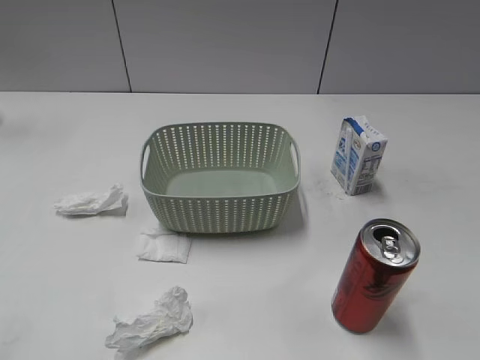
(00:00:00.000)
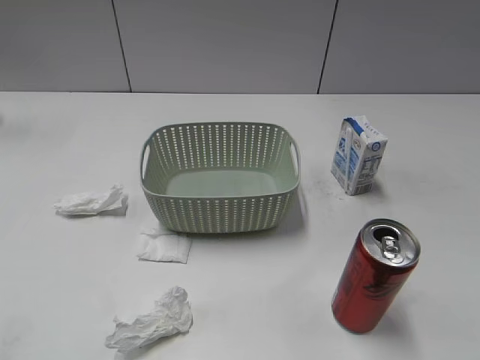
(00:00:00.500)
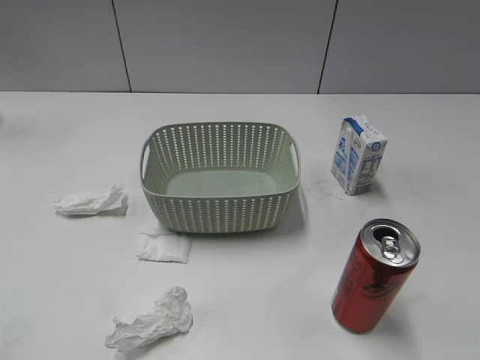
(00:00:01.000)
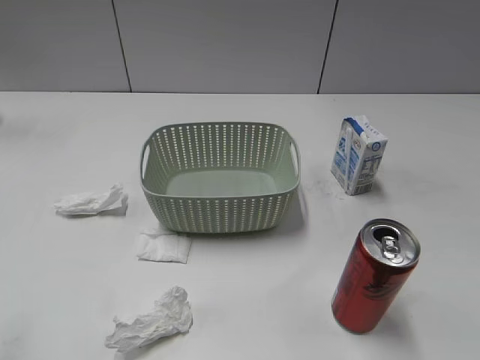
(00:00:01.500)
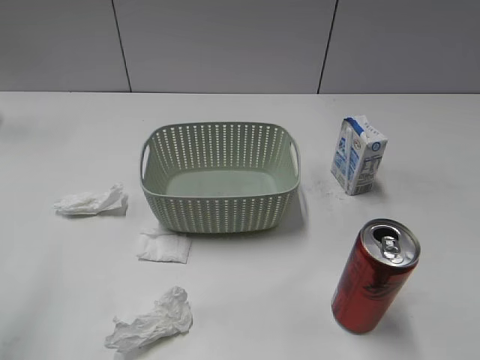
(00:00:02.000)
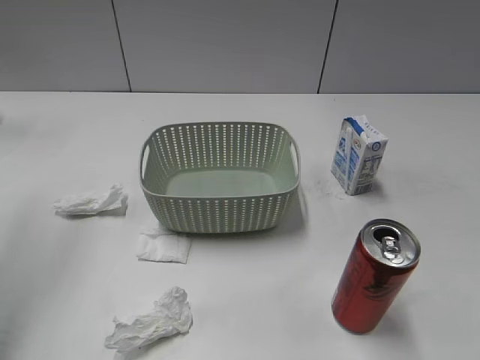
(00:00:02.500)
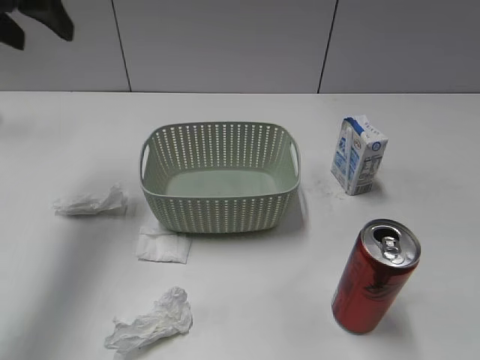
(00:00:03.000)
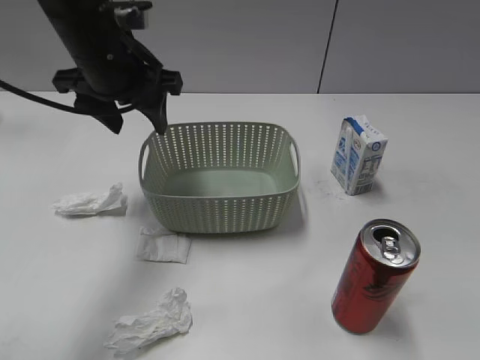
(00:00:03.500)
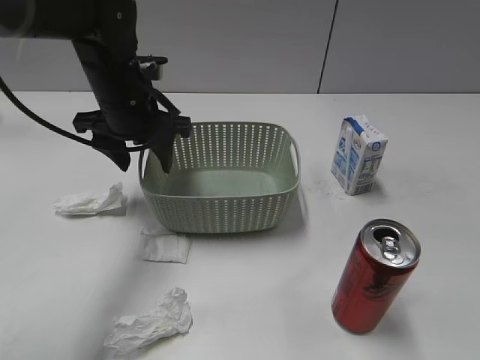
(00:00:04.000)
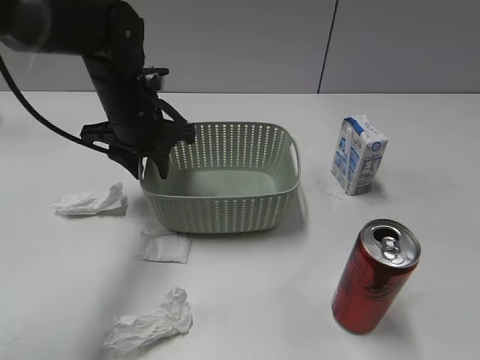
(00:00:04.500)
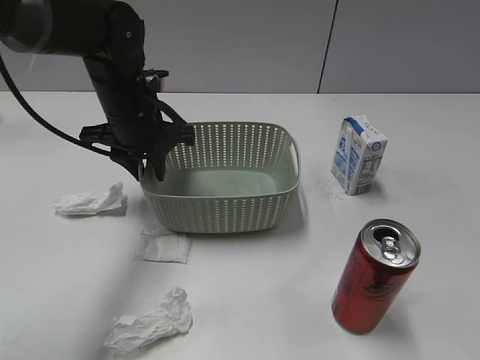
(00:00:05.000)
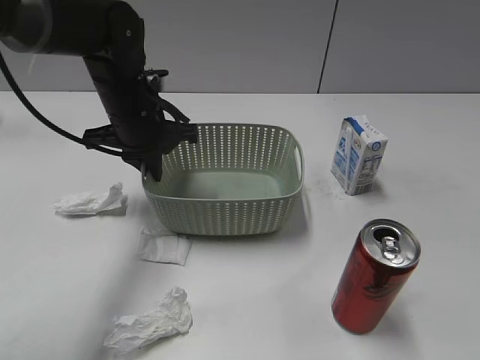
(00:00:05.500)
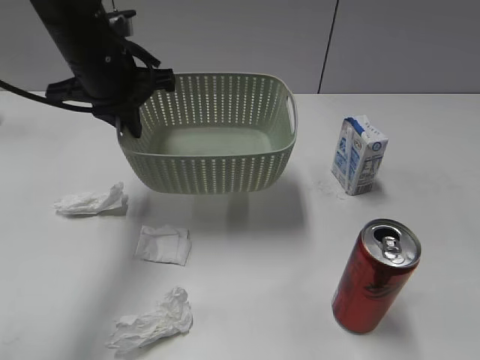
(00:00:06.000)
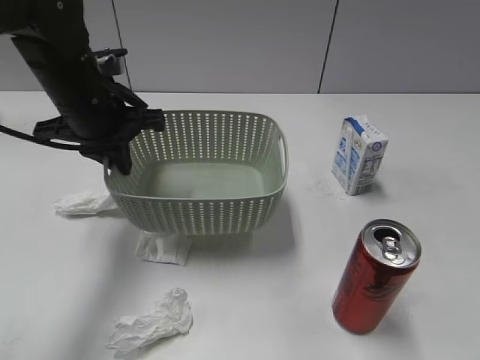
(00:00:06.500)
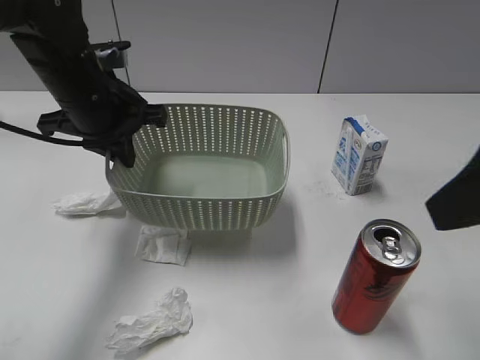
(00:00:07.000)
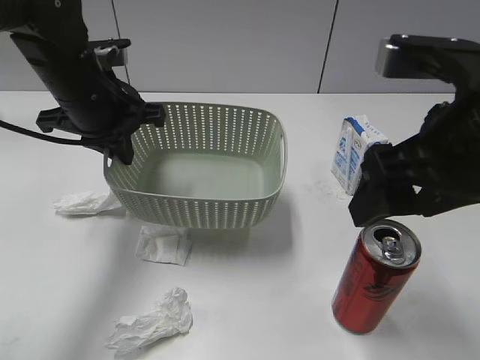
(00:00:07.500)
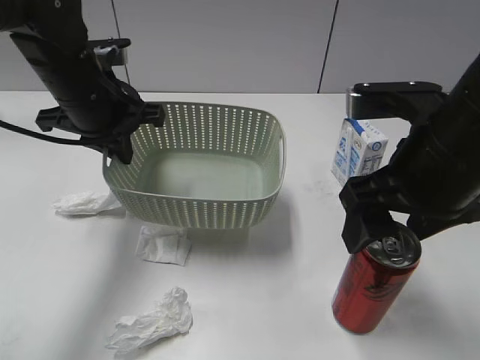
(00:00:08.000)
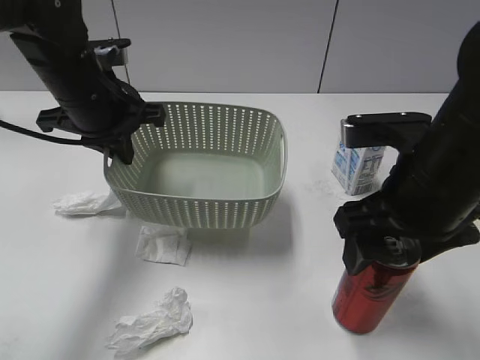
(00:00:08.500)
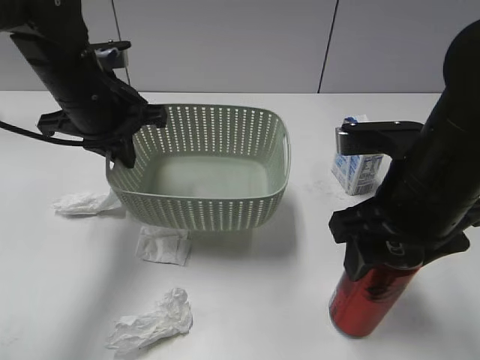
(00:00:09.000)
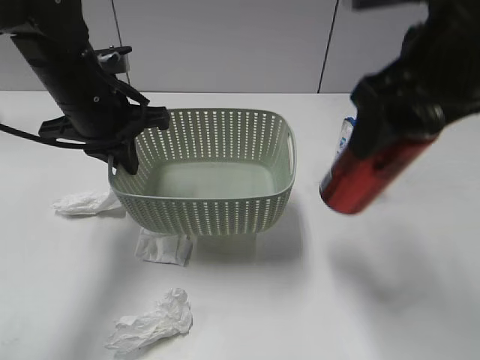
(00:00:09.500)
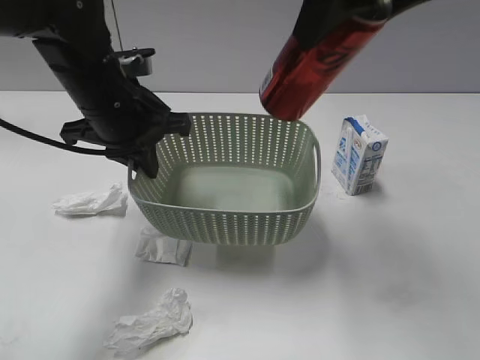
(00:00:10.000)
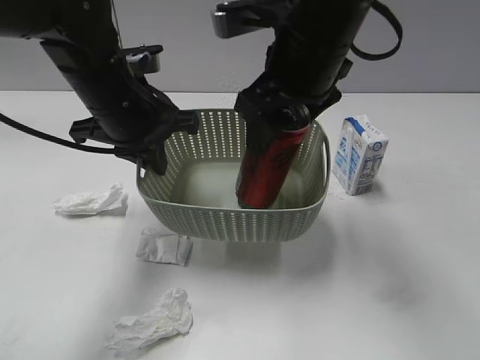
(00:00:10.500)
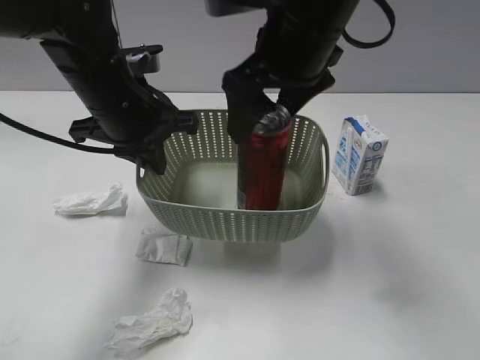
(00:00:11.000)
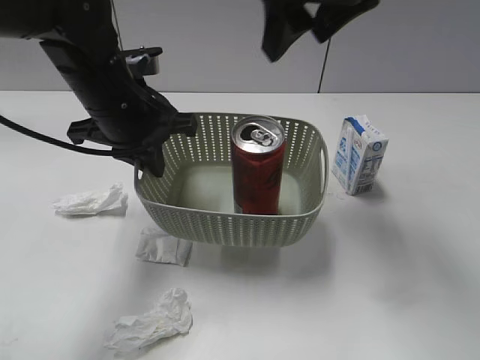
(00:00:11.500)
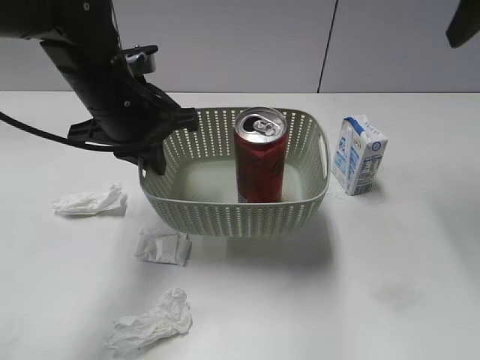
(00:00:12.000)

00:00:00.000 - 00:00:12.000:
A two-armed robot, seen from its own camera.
Step, 00:00:03.000 - 00:00:05.000: Grasp the basket with left gripper.
Step, 00:00:05.500 - 00:00:06.500: Lift the basket with left gripper.
Step, 00:00:07.000 - 00:00:08.500: Grasp the cola can with right gripper.
Step, 00:00:09.000 - 00:00:11.000: Place the cola can in the basket with right gripper.
00:00:02.000 - 00:00:04.000: The left gripper shifts approximately 35 cm forward, downward and to the right.
00:00:04.000 - 00:00:06.000: The left gripper moves upward, roughly 5 cm, and closes.
00:00:06.000 - 00:00:08.000: The right gripper is displaced forward and to the left by roughly 25 cm.
00:00:08.000 - 00:00:10.000: The right gripper travels upward, forward and to the left by approximately 15 cm, and closes its fingers.
00:00:10.000 - 00:00:12.000: The right gripper heads to the right, covering approximately 15 cm, and opens.

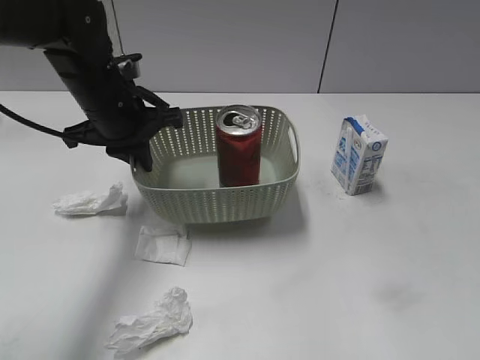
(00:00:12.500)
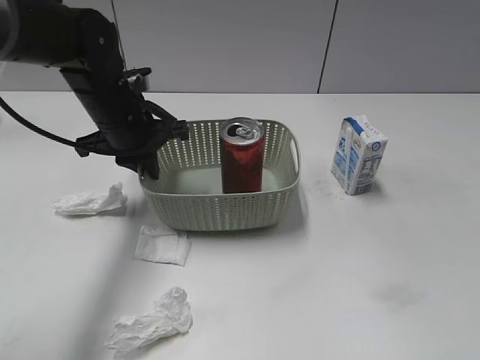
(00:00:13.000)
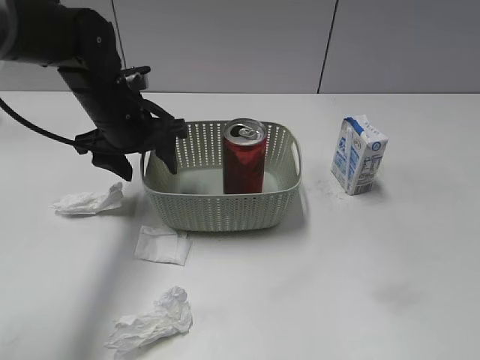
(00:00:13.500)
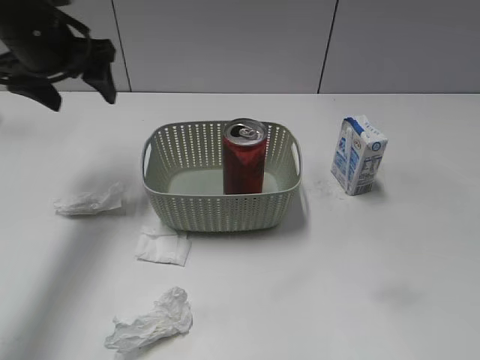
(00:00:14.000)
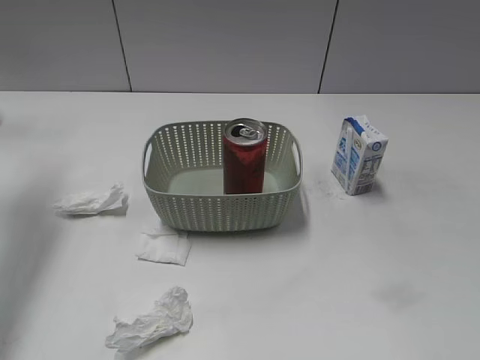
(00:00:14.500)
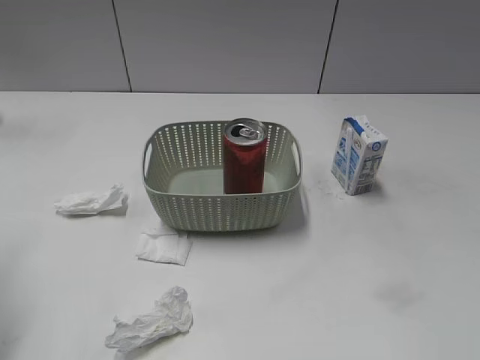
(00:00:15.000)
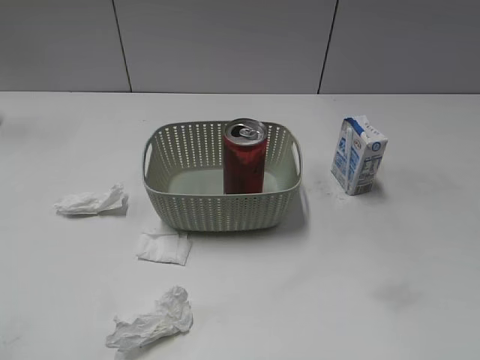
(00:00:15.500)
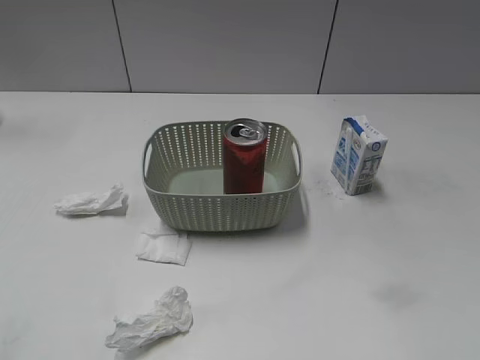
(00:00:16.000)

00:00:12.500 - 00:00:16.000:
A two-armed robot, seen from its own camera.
00:00:12.500 - 00:00:14.500: The right gripper heads backward and downward, covering roughly 15 cm; the left gripper shifts approximately 20 cm to the left and upward, and opens.
00:00:14.500 - 00:00:16.000: The left gripper shifts about 35 cm backward.

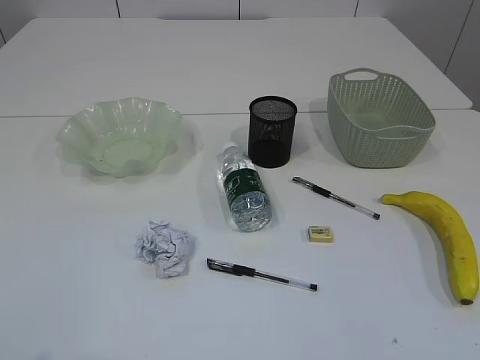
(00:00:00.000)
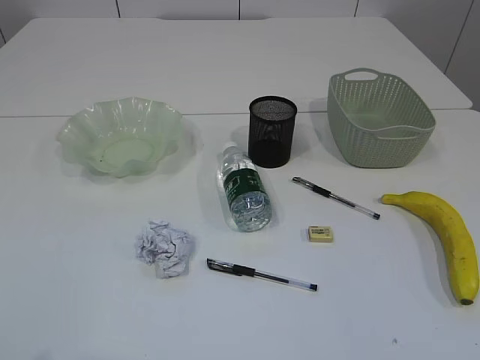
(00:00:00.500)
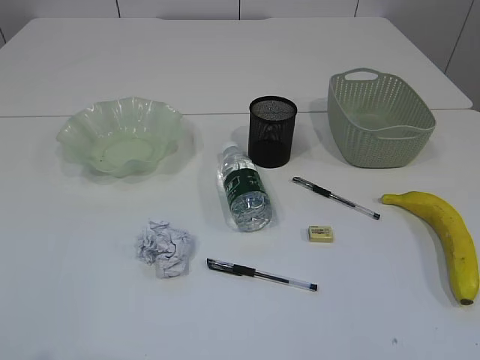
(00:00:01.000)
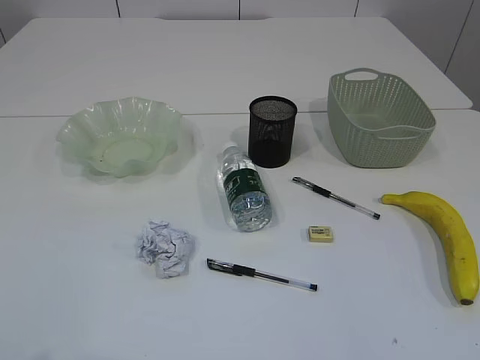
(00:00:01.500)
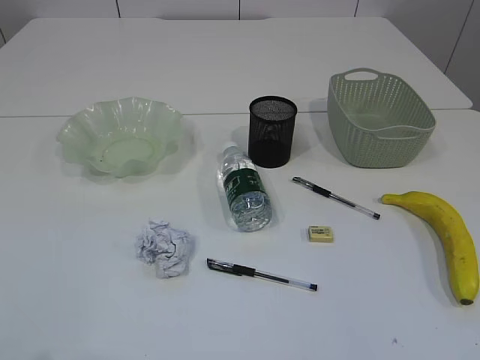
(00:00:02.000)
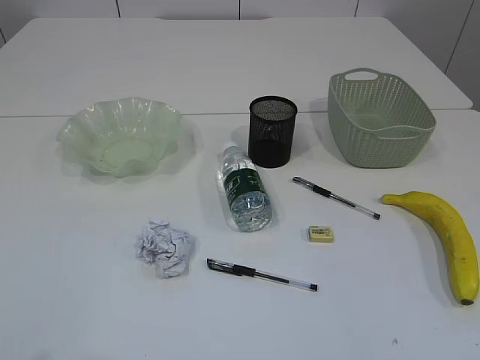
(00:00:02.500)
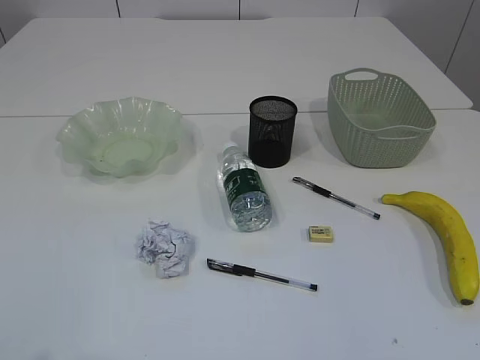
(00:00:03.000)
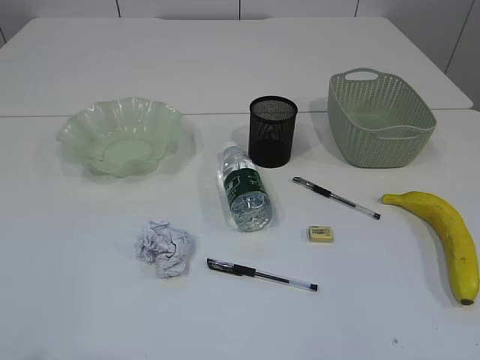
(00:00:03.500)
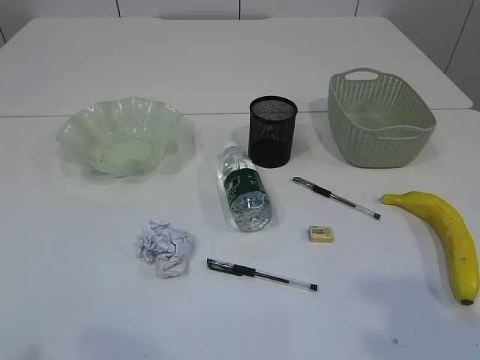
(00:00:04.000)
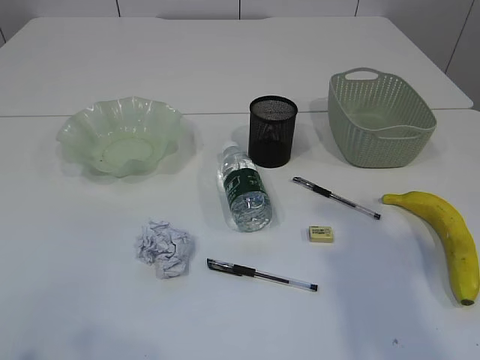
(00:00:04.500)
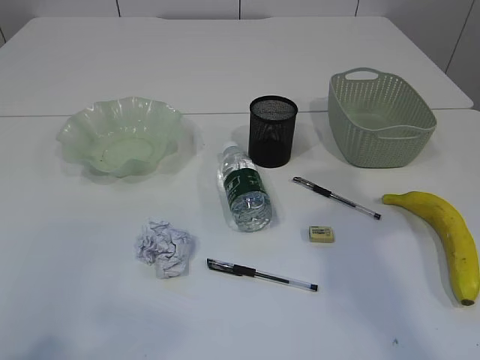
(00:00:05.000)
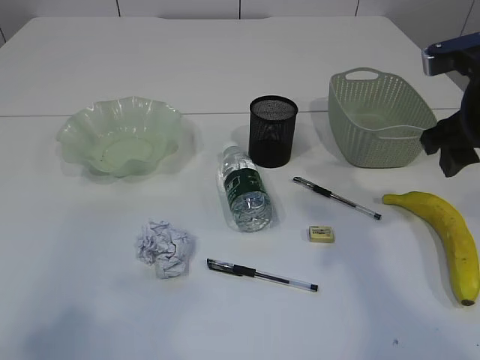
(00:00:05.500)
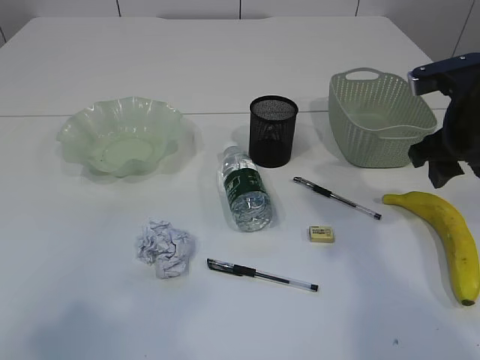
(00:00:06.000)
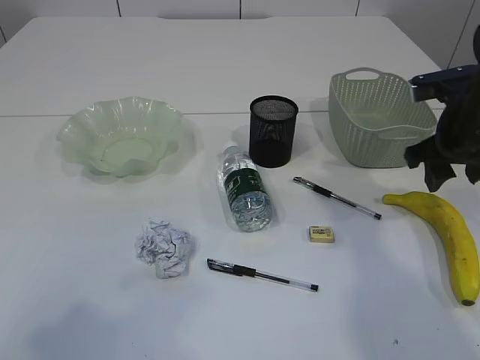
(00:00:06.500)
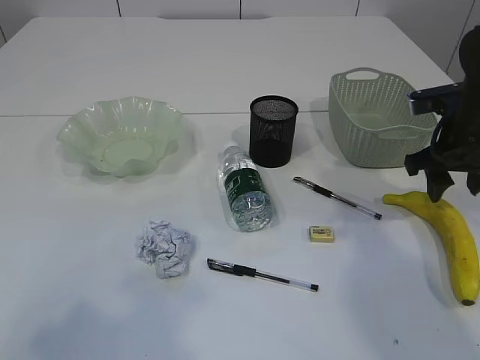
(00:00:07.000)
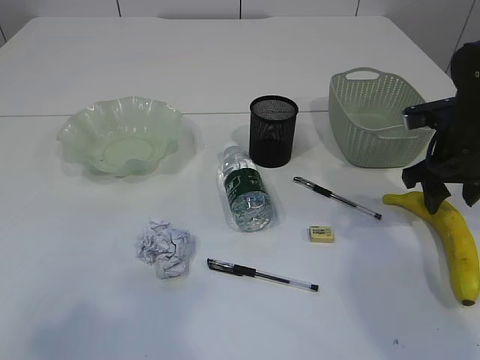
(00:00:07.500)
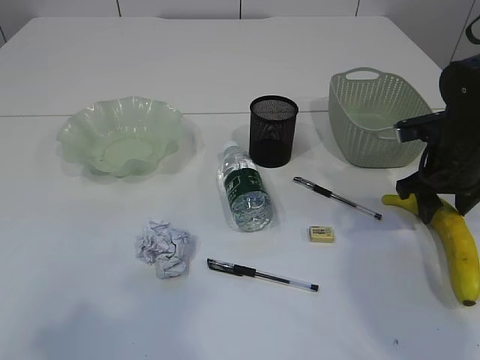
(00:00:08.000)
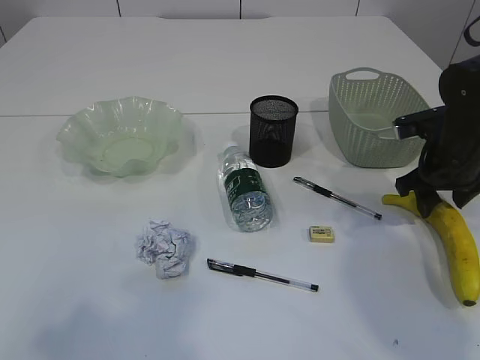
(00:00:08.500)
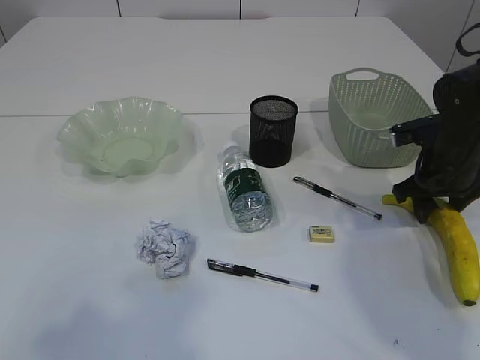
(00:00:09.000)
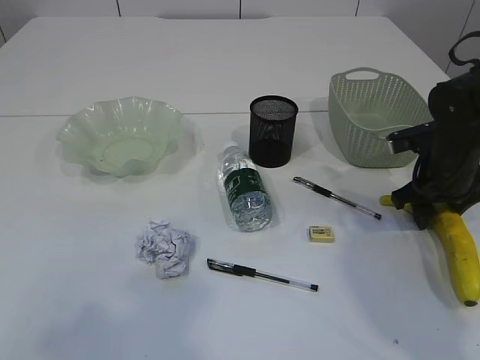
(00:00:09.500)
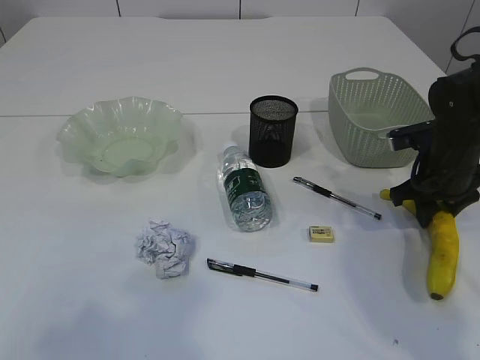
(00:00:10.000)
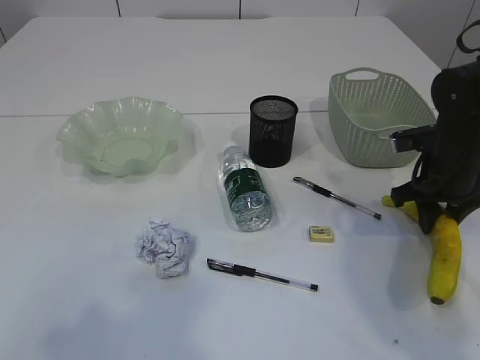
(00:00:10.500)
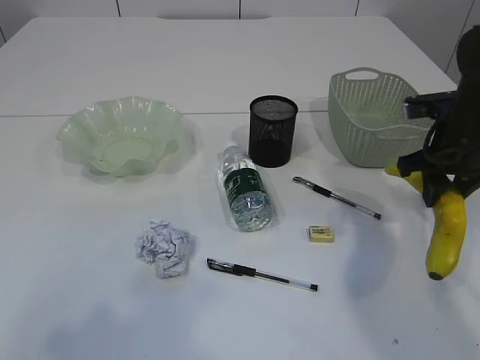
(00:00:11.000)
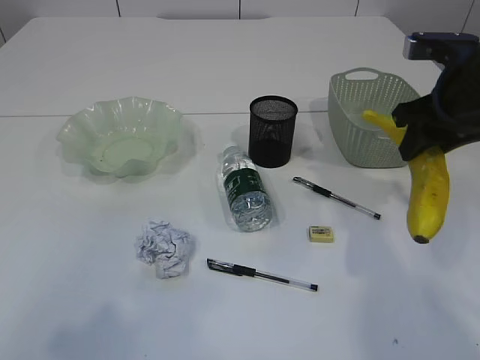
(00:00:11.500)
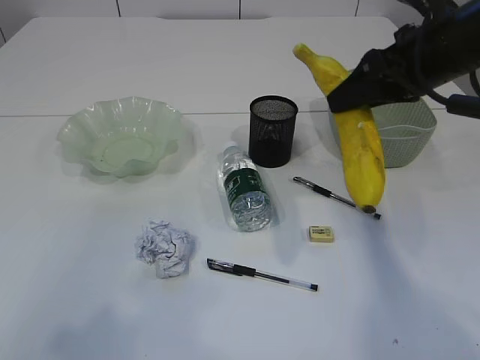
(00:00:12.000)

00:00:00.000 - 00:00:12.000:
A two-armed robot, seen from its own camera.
00:00:02.000 - 00:00:04.000: The right gripper shifts about 10 cm forward and upward.
00:00:04.000 - 00:00:06.000: The left gripper travels upward by approximately 10 cm; the right gripper heads forward, covering some 25 cm.
00:00:06.000 - 00:00:08.000: The right gripper travels downward by roughly 10 cm.
00:00:08.000 - 00:00:10.000: The grippers make only small movements.
00:00:10.000 - 00:00:12.000: The right gripper goes about 20 cm upward and to the left.
